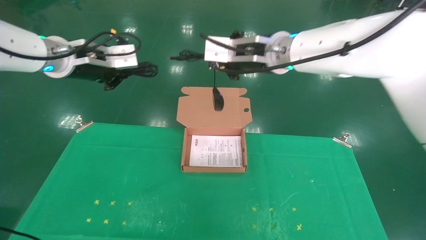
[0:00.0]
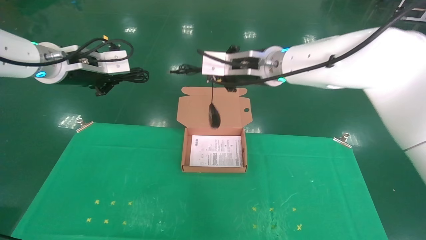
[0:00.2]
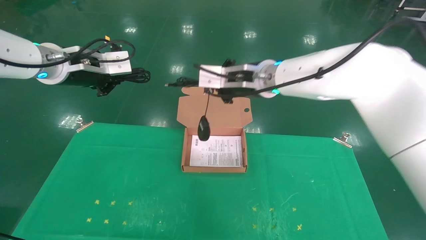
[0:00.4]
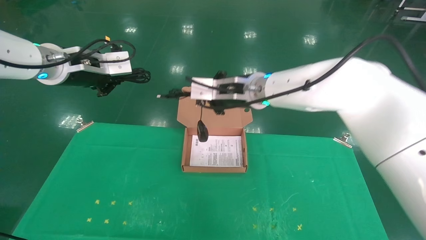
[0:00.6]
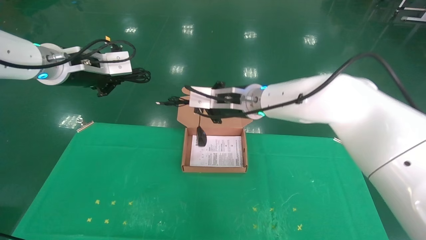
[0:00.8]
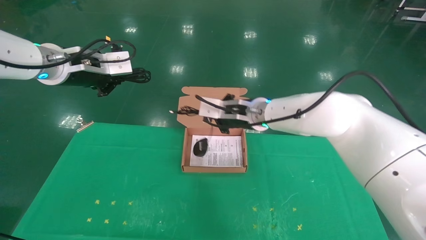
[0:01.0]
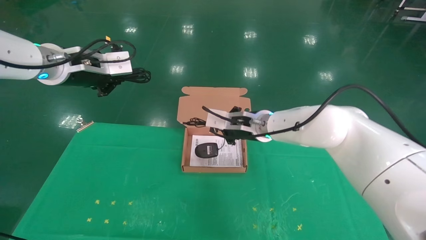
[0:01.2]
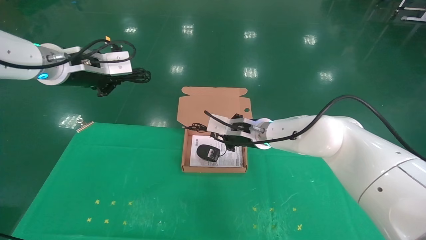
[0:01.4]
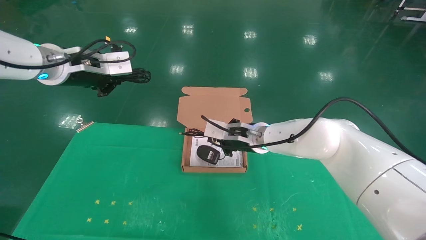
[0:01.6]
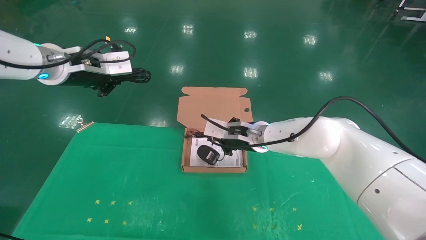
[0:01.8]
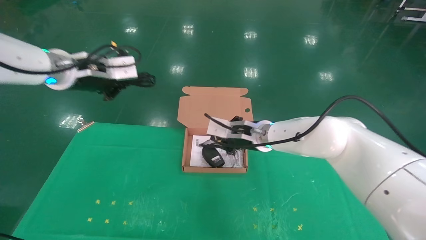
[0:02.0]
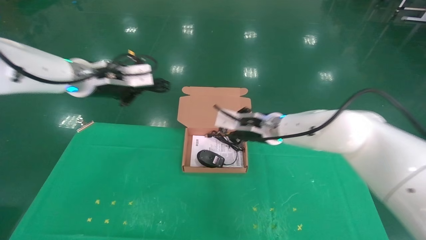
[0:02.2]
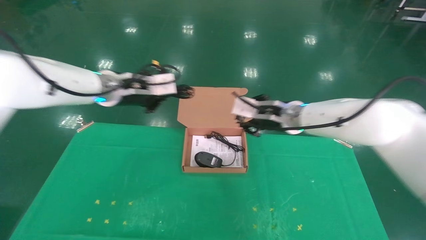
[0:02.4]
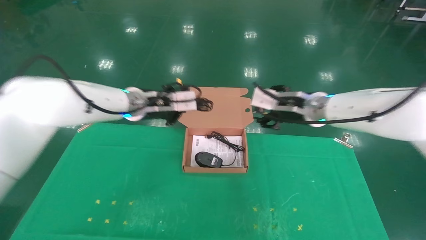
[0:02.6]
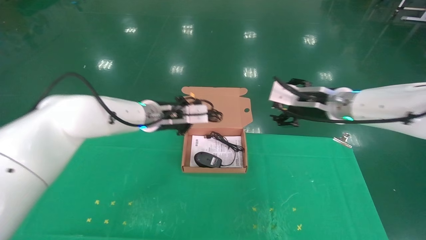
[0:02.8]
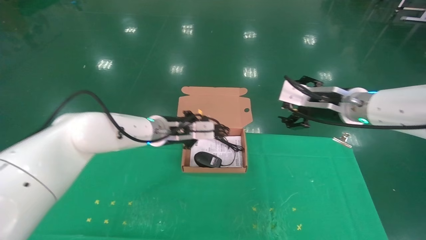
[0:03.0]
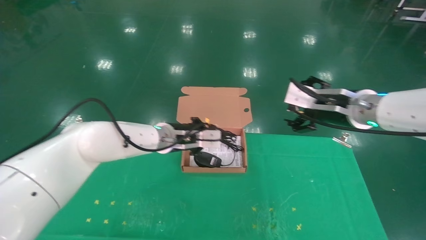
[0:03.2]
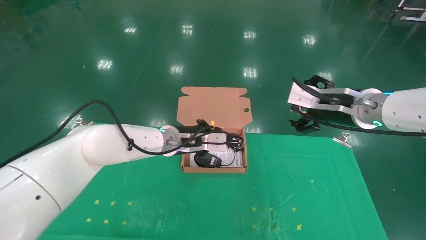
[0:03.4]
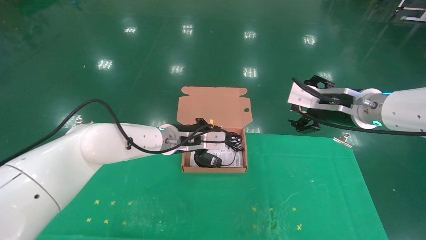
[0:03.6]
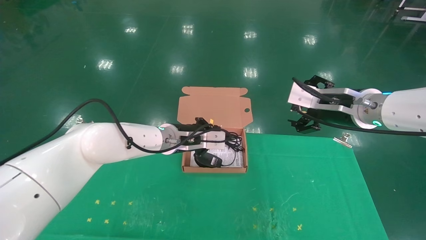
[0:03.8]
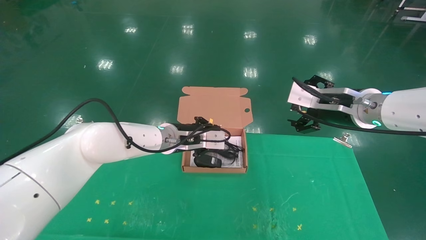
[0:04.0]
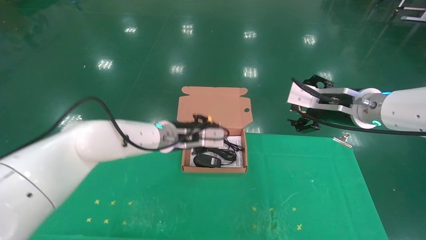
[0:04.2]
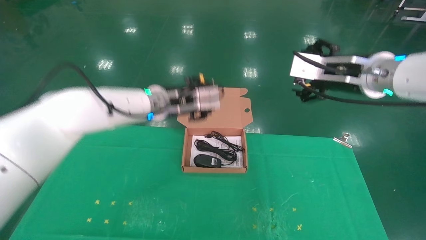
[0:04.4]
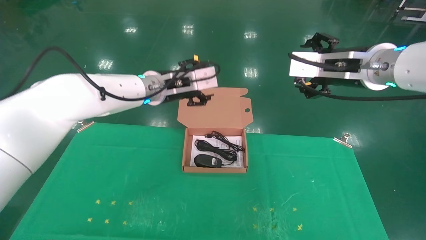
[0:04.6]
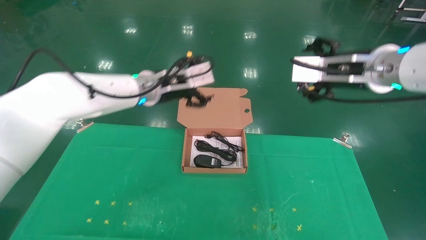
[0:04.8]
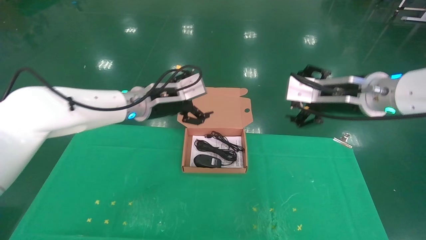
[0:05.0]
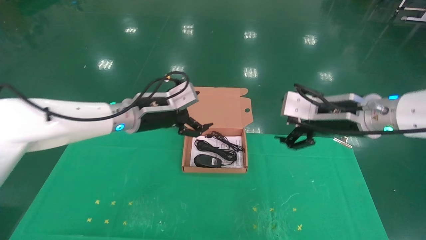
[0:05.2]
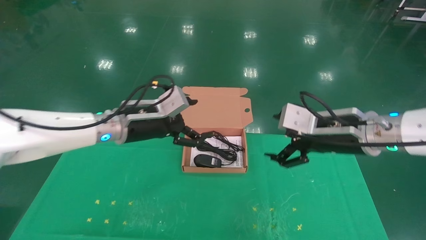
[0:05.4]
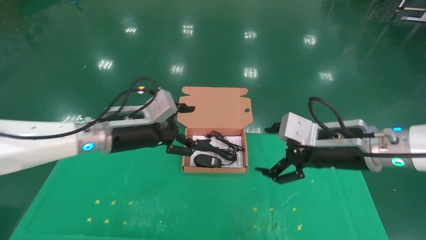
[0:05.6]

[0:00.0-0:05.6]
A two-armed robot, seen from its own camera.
Task of the whole recording: grasp data cable left put into box grasp mouse right put into box.
Step, 0:00.0 to 0:04.2: Place the mouse and power cord into the box.
0:00.0 to 0:01.4: The right gripper is displaced downward by about 15 cm.
0:01.4 to 0:02.8: The right gripper heads to the right, upward and backward, covering roughly 15 cm, and opens its fingers. The left gripper travels to the right, downward and forward by roughly 20 cm.
0:02.8 to 0:04.2: The right gripper ends up roughly 5 cm from where it was.
0:04.2 to 0:05.6: The left gripper heads to the left and backward, covering approximately 10 cm, and opens, while the right gripper goes roughly 10 cm downward and backward.
